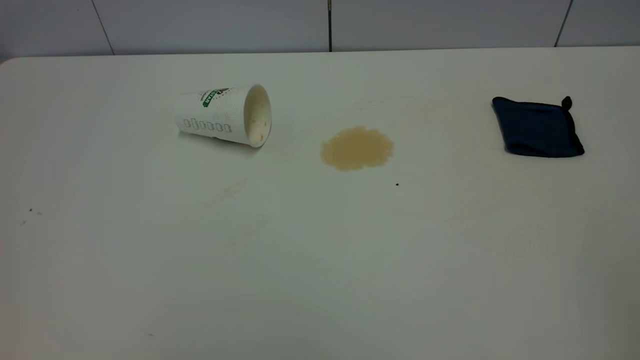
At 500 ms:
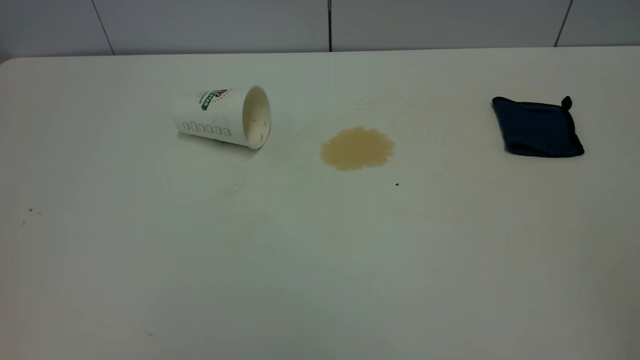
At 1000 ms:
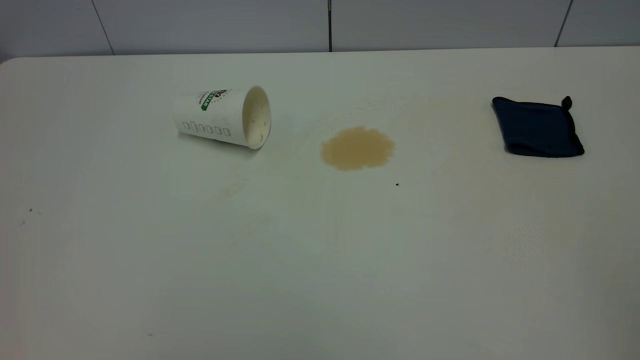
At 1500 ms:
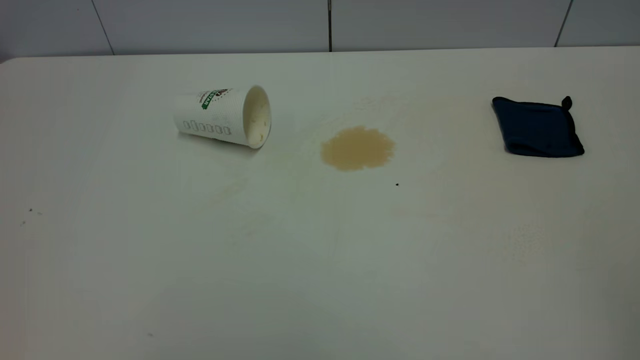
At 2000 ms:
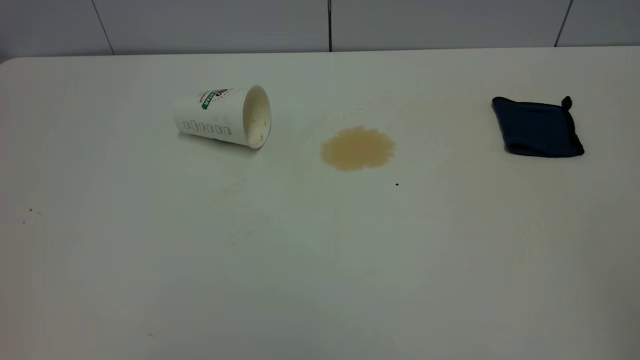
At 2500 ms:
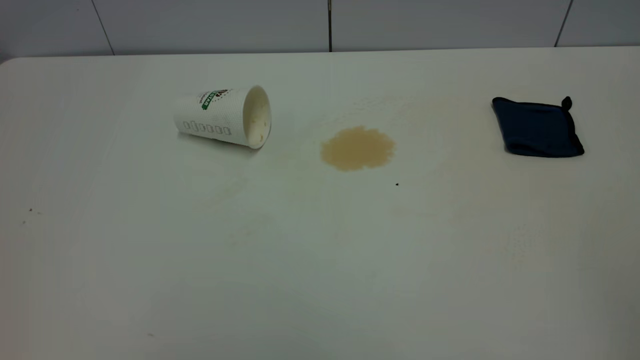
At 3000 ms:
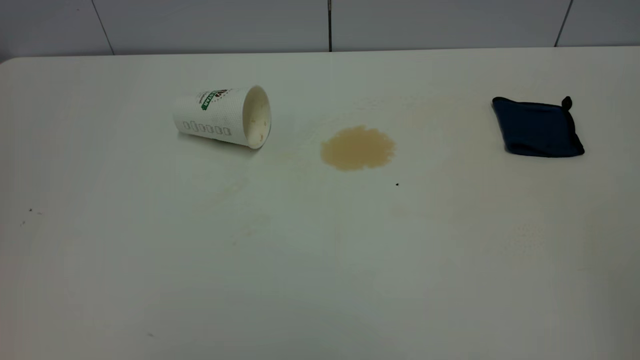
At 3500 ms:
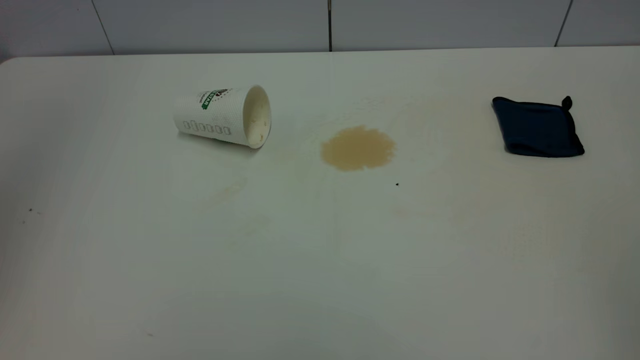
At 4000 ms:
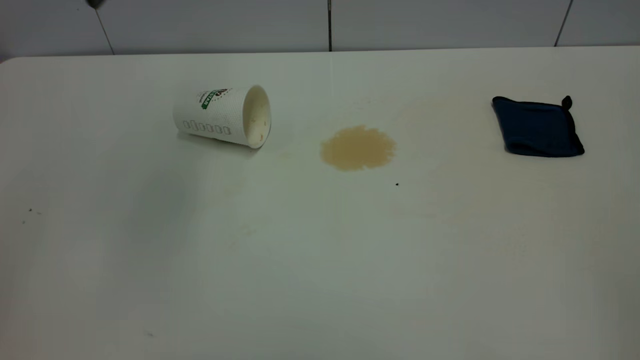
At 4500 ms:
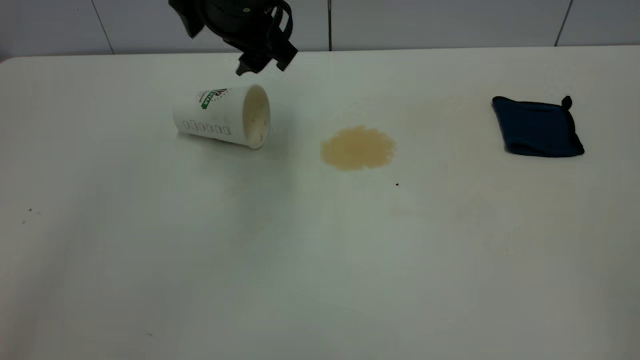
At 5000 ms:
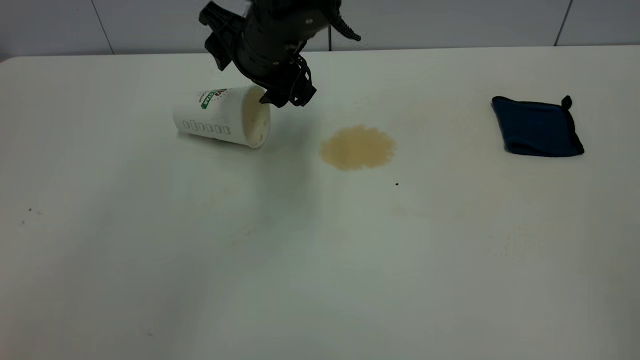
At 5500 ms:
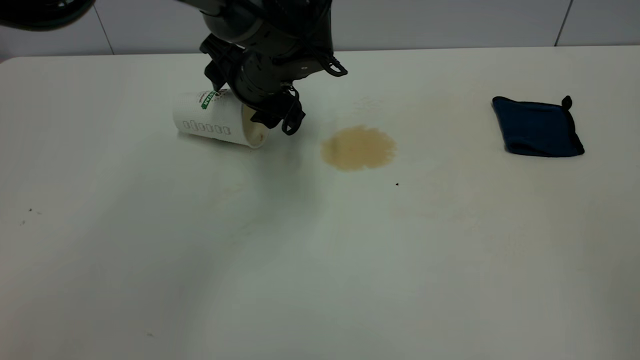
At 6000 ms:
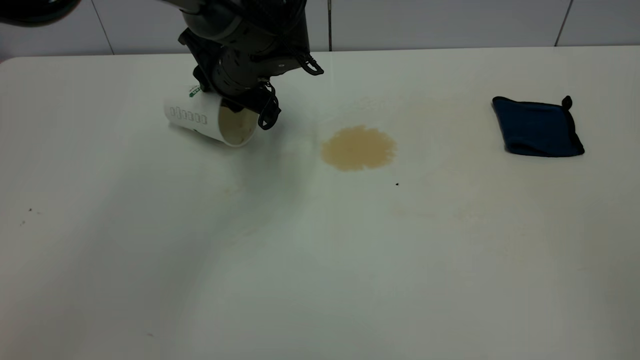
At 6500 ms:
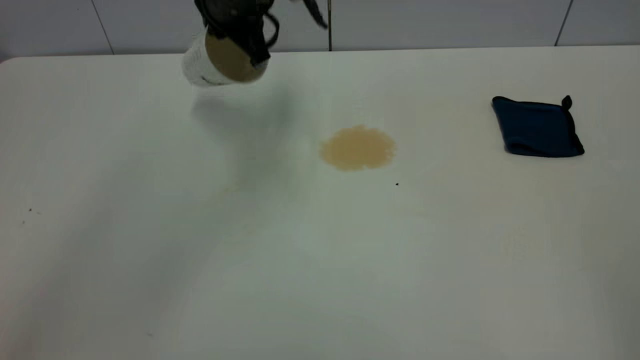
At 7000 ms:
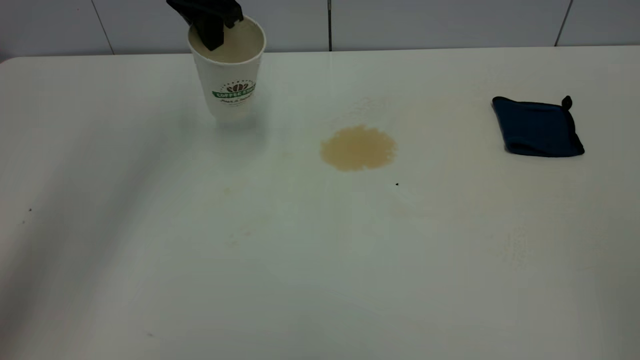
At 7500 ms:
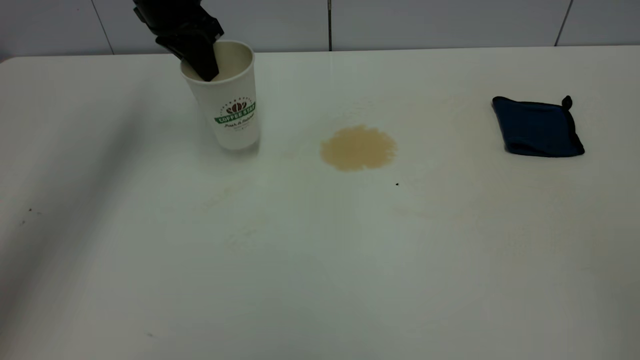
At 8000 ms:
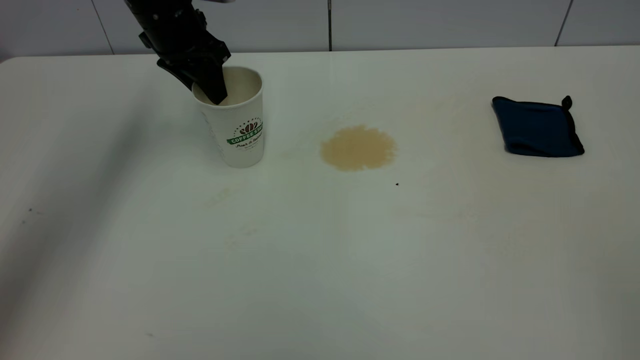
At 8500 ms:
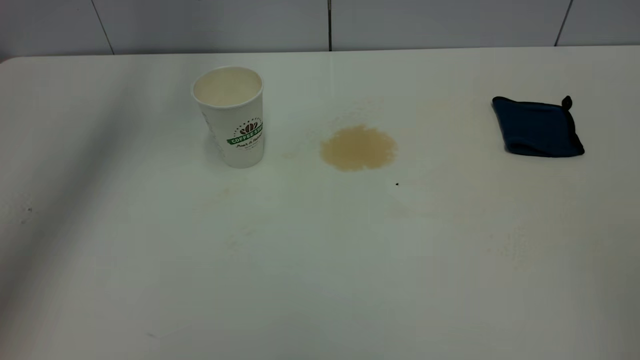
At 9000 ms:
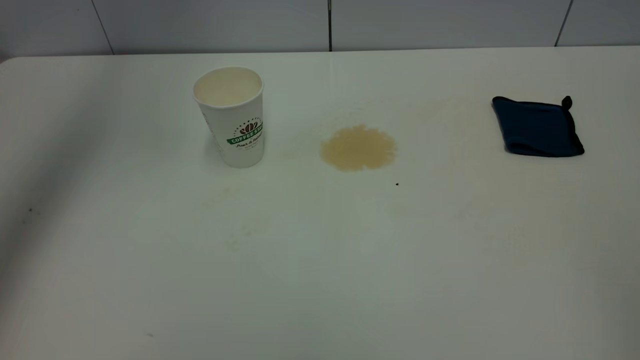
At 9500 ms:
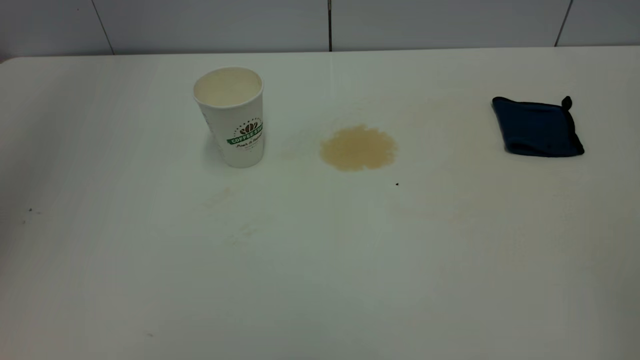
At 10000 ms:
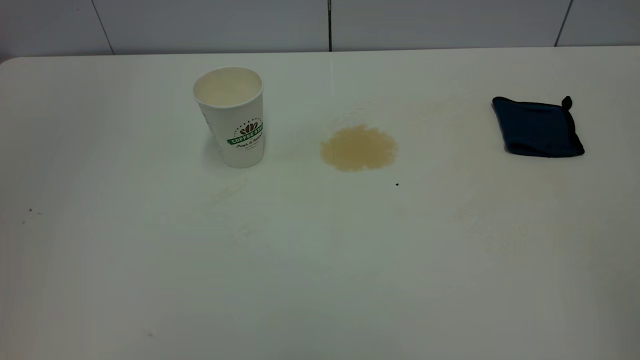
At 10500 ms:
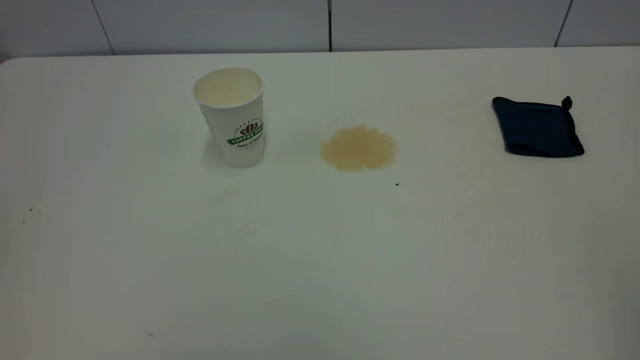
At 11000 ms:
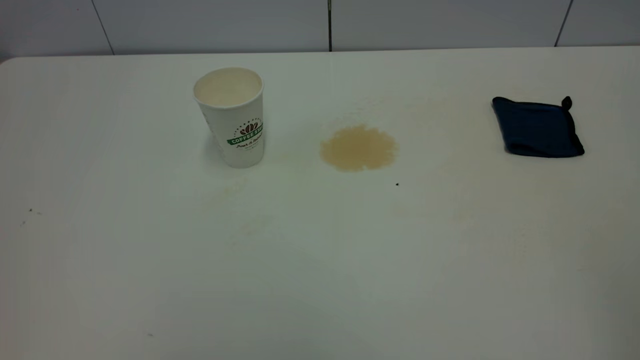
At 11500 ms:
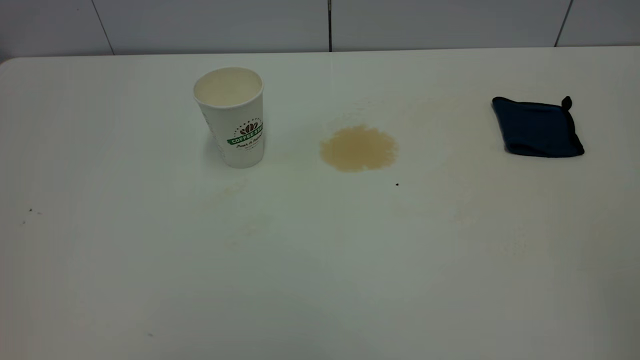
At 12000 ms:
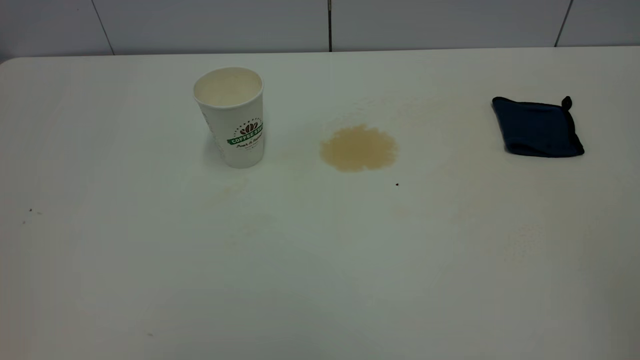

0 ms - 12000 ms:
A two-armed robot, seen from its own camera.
Task of the whole recording: the left gripper pick up the fallen cup and place it upright, the right gripper grasp the blue rag and wipe the tea stain on the table, the right gripper put the blue rag back in its original position.
Step, 0 ms - 8000 ms: Stand the paper cup upright.
0 ms - 2000 ms: The two grippers keep their place.
2000 ms - 4000 ms: The left gripper shifts some 40 cm forward and to the right.
4000 ms - 6000 ms: The left gripper is displaced downward and forward by approximately 25 cm, and closes its fingers.
6000 ms - 8000 ms: The left gripper travels to the left and upward by roughly 10 cm.
8000 ms - 10000 ms: The left gripper moves backward and upward, roughly 40 cm, and opens and closes again.

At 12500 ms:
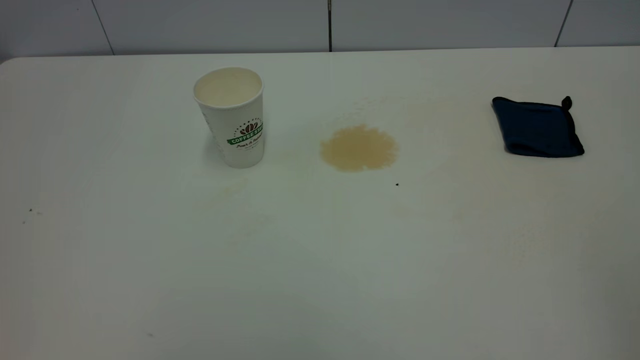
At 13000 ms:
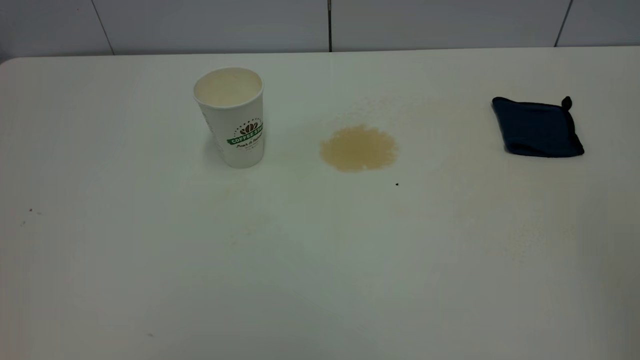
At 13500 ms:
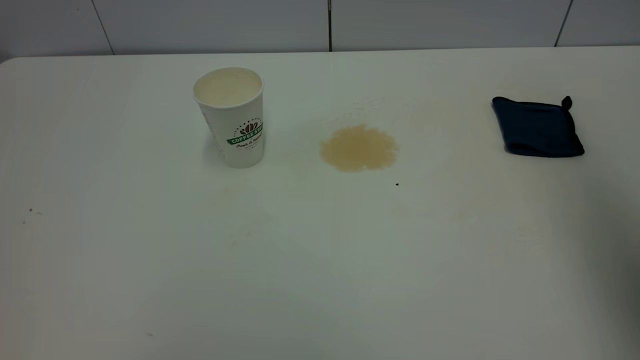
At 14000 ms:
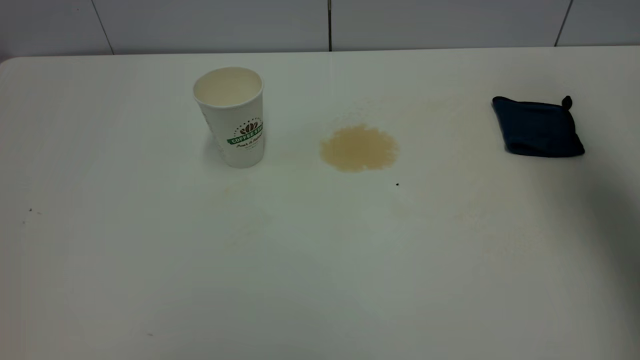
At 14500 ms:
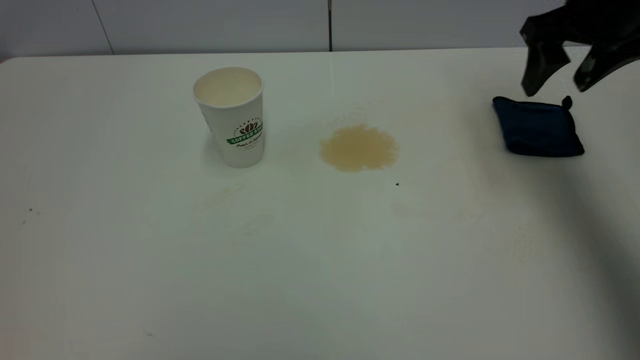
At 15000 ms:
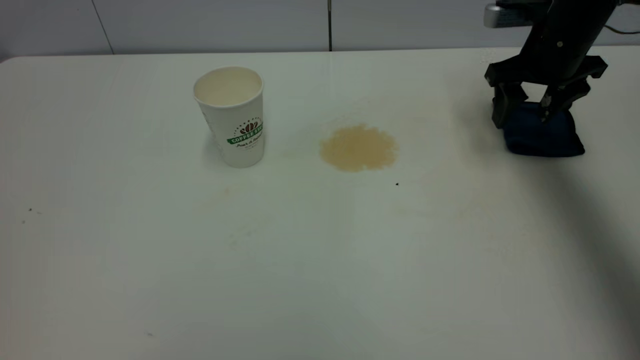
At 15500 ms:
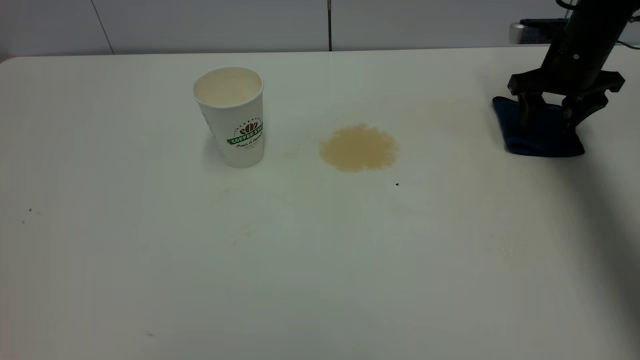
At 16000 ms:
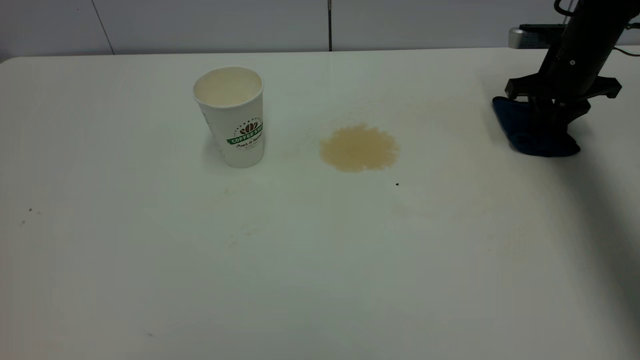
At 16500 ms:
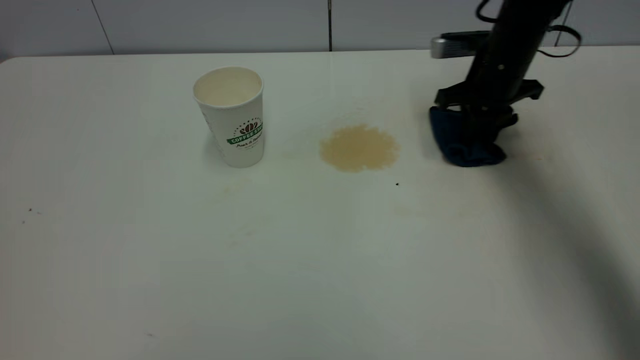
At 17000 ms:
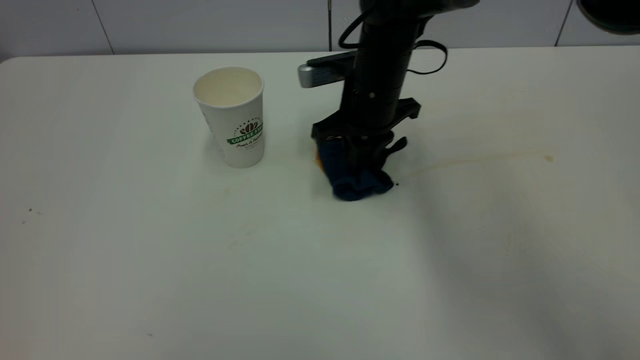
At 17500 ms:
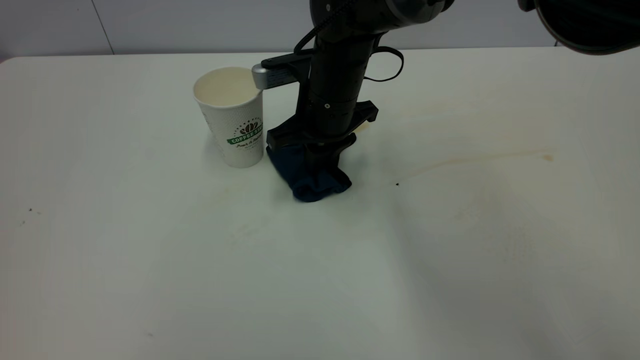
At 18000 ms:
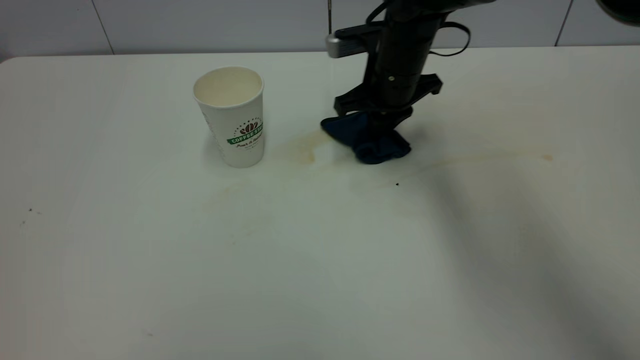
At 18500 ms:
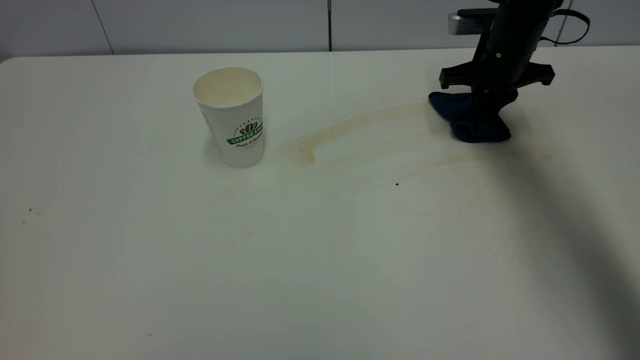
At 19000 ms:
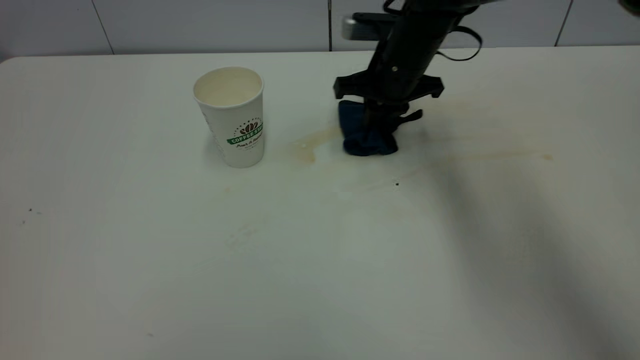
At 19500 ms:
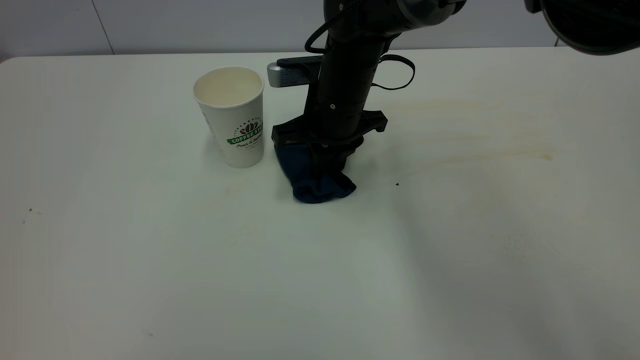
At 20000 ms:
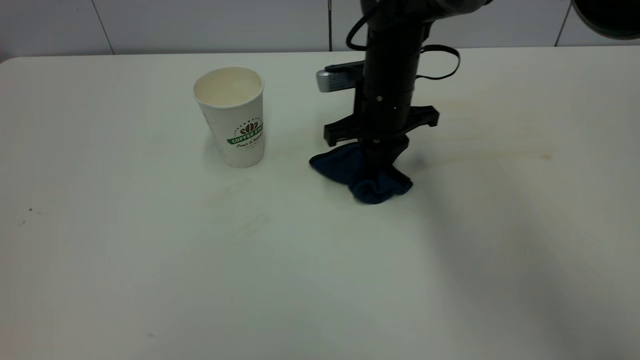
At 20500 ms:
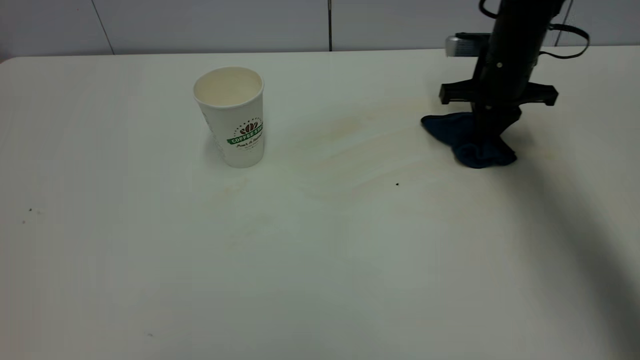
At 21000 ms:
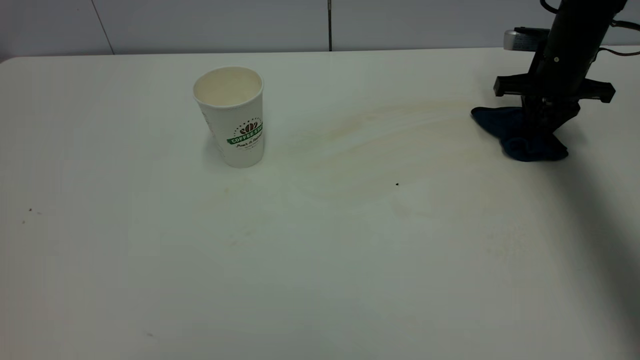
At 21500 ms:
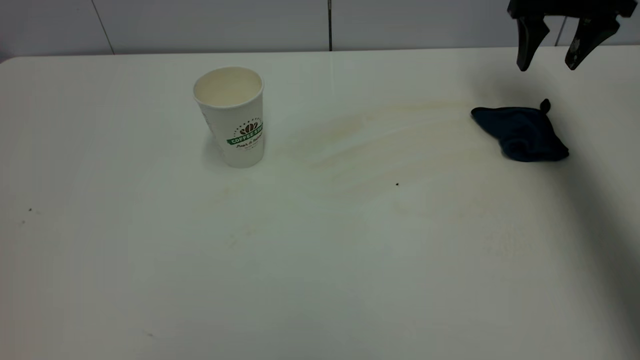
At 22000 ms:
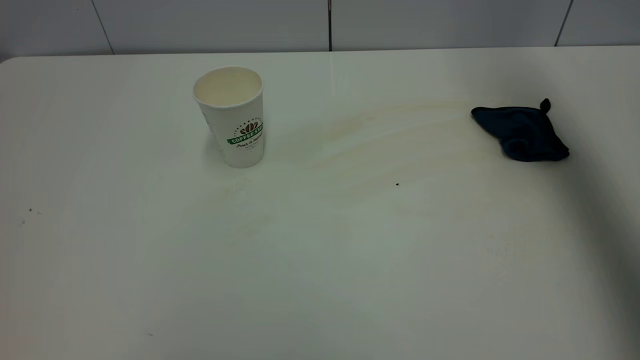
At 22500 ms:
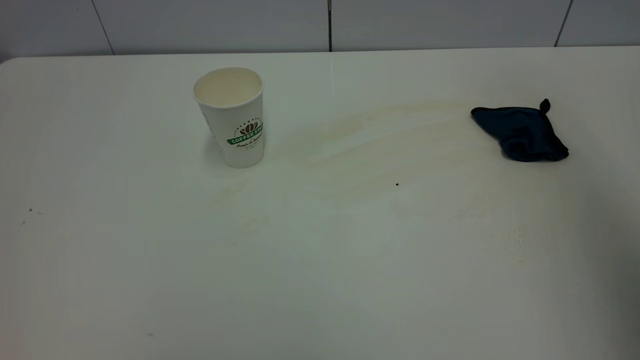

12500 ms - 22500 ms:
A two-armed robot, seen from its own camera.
Task of the whole recording: the left gripper pick up the fallen cup and place it upright, the right gripper grasp the blue rag and wipe the tea stain on the table, the right gripper put the blue rag back in its original position.
Step, 12500 ms - 21000 ms: Wipe the stains off the table with a rag.
12500 ms - 14500 ms: The right gripper is displaced forward by some 40 cm, and opens.
14500 ms - 16500 ms: The right gripper moves downward, forward and to the left, about 15 cm, and closes its fingers.
16500 ms - 18500 ms: The right gripper goes to the left and returns, about 20 cm each way.
18500 ms - 20500 ms: The right gripper moves some 20 cm to the left and comes back.
20500 ms - 22500 ms: The right gripper shifts about 50 cm upward and backward, and opens up.
